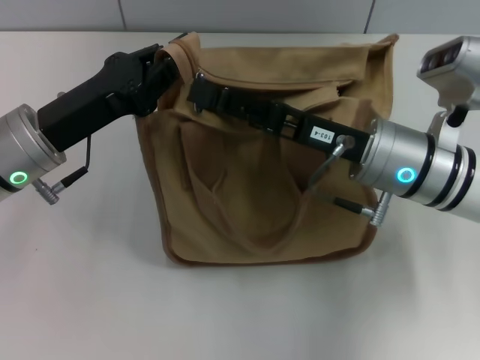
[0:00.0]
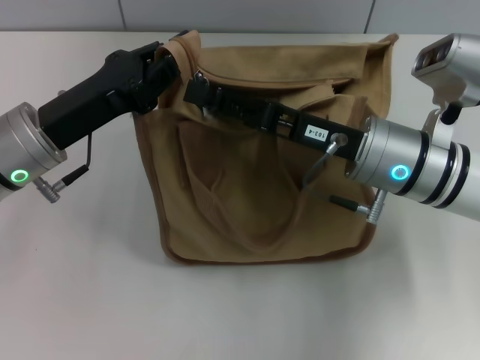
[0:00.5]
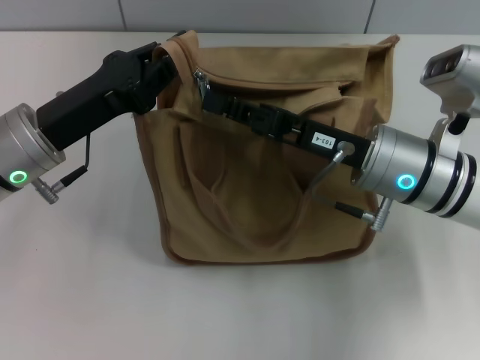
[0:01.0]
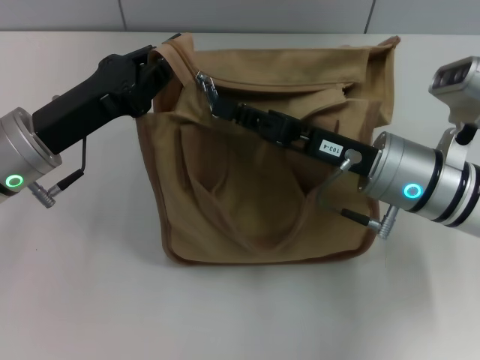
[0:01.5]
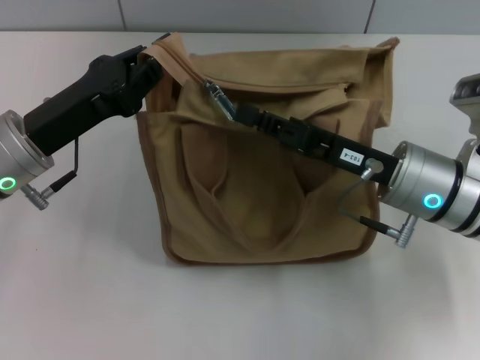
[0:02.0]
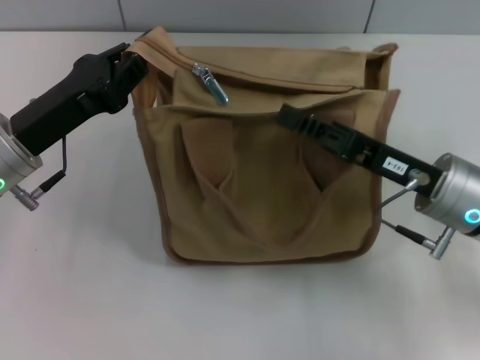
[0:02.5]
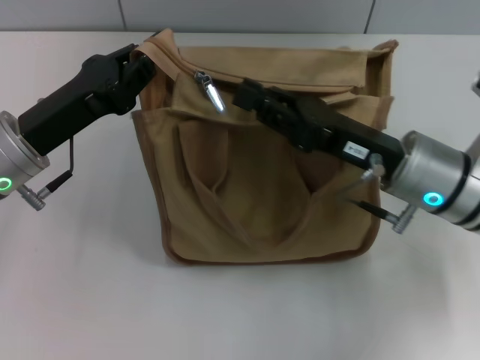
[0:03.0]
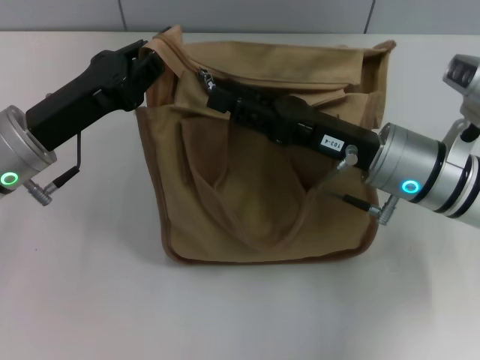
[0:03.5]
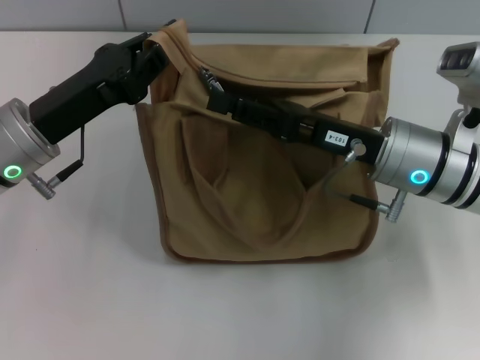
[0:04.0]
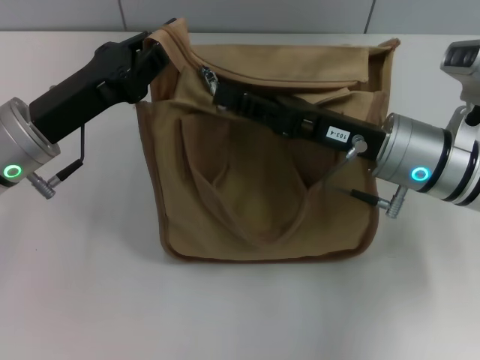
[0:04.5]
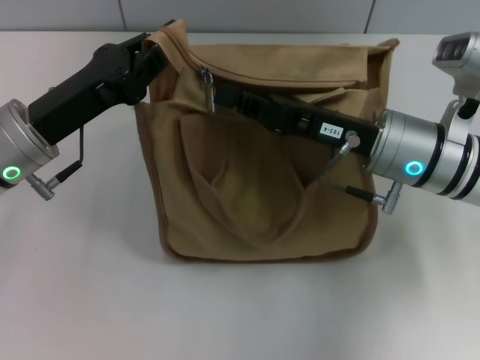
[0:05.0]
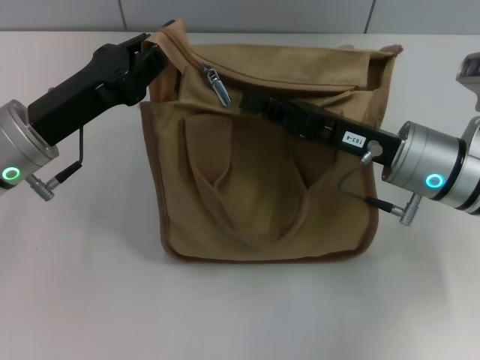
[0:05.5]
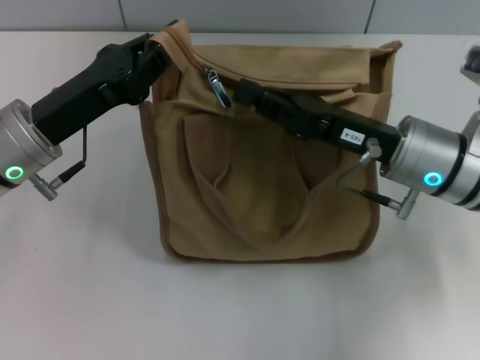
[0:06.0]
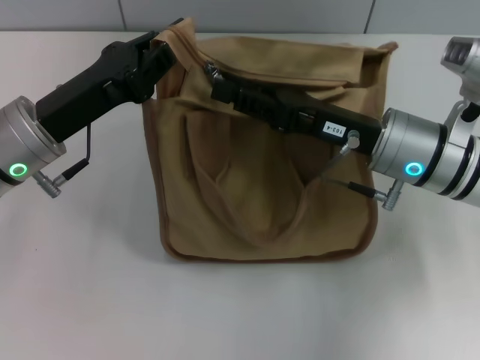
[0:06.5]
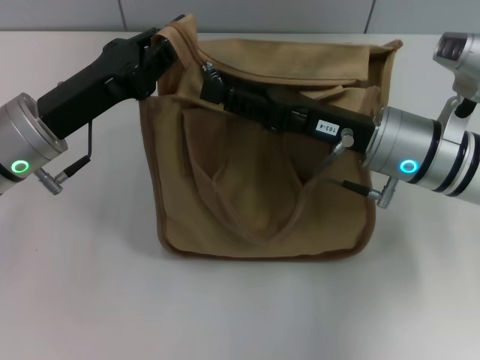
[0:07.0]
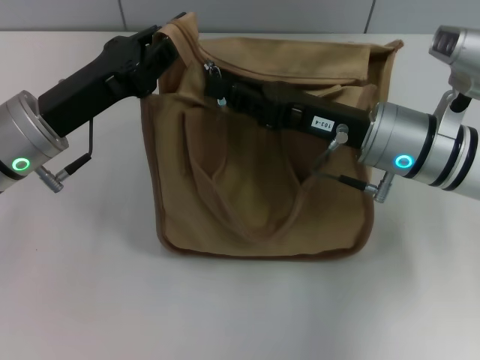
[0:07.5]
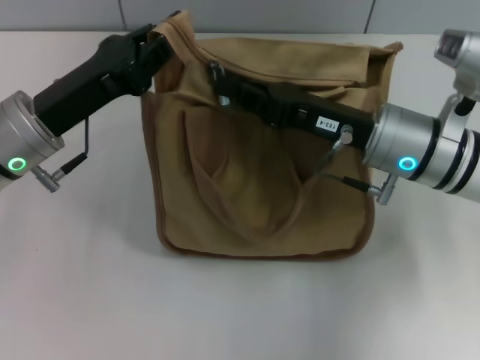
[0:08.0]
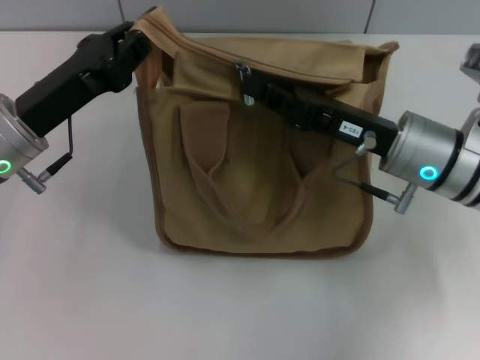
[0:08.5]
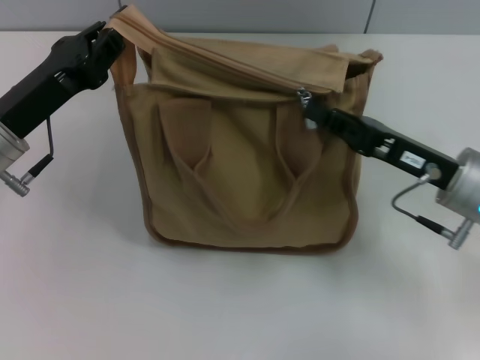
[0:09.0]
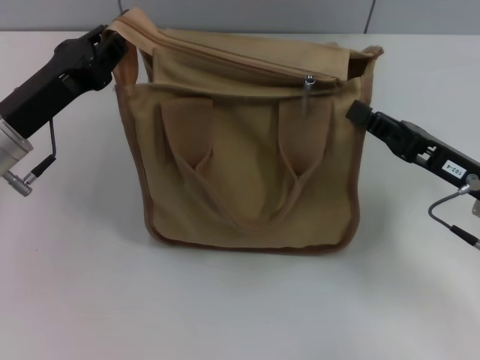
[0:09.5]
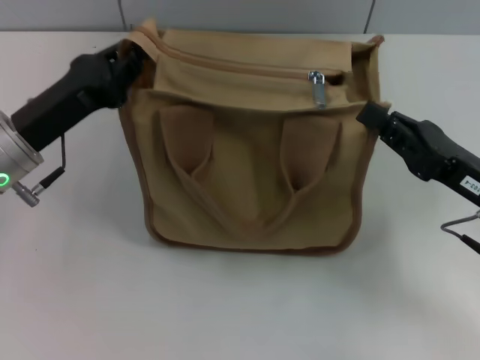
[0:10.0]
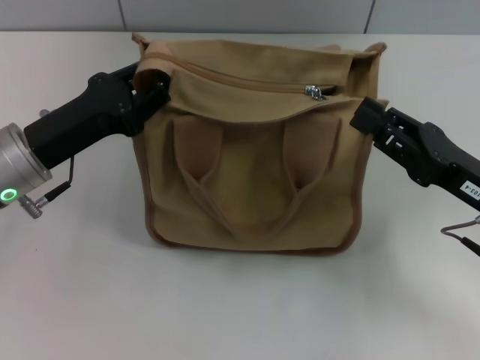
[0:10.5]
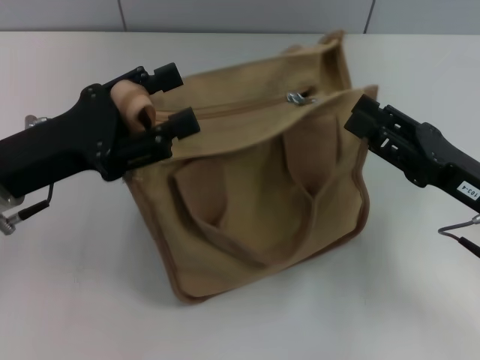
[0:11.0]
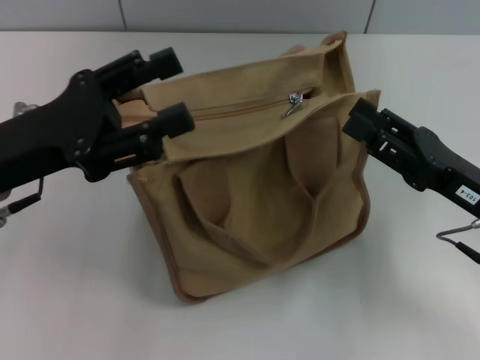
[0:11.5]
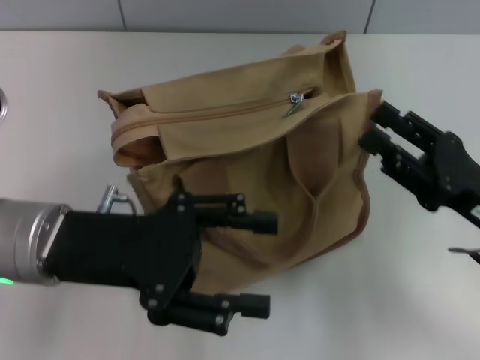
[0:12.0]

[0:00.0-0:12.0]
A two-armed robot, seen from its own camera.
Step, 0:00.0 to 0:09.5: Pull up the zipper with your right hand.
Step, 0:10.0 to 0:11.0: Grab the zipper with your left hand.
0:00.0 to 0:02.0: The right gripper closes its fingers.
0:02.0 to 0:04.0: The right gripper opens its fingers.
0:04.0 to 0:06.0: The right gripper closes its fingers.
0:06.0 to 0:08.0: The right gripper opens, then closes once more.
0:08.0 to 0:10.0: The right gripper moves to the right and backward, about 15 cm.
0:10.0 to 0:12.0: The right gripper opens its fingers; the left gripper is displaced backward by about 5 cm, and opens.

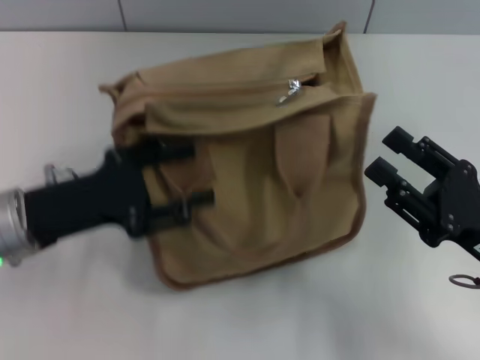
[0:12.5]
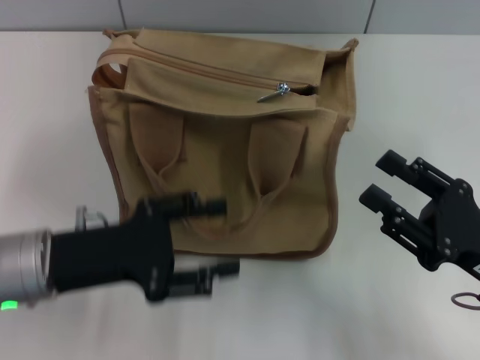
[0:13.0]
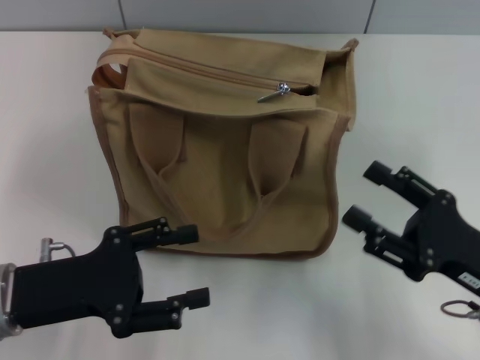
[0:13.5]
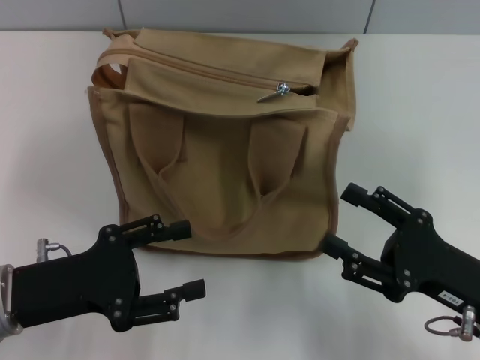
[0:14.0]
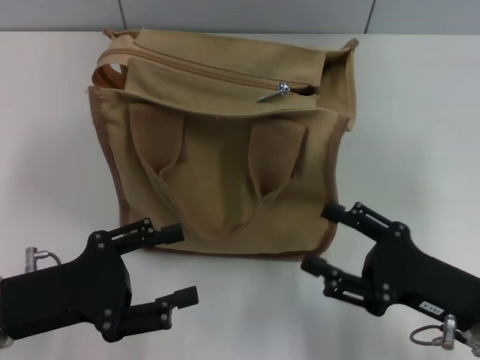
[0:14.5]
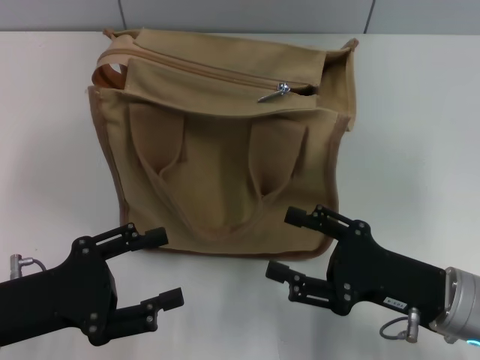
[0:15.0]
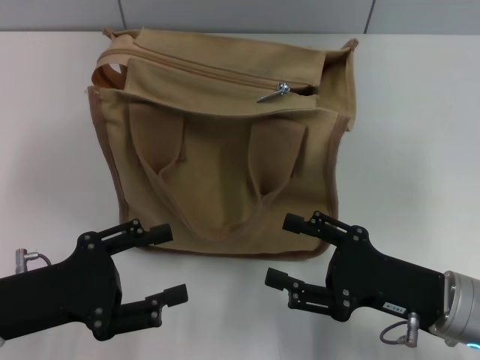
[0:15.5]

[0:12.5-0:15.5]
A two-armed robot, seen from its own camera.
0:12.5 to 0:14.0: The left gripper is displaced backward by roughly 5 cm.
0:14.0 to 0:15.5: The grippers stay close to where they were, moving slightly.

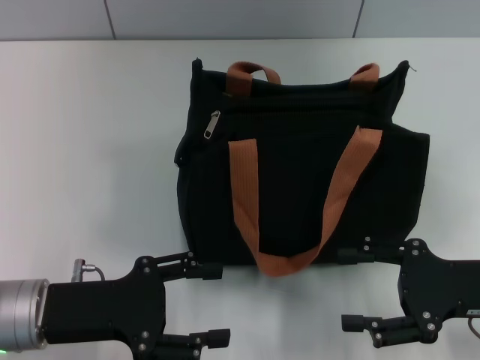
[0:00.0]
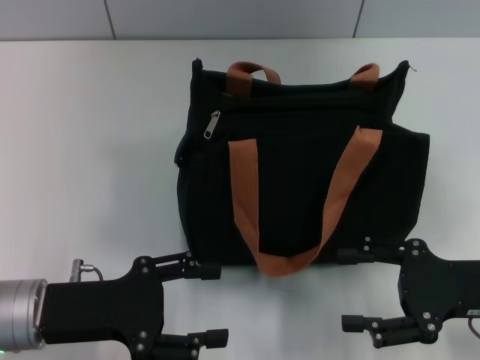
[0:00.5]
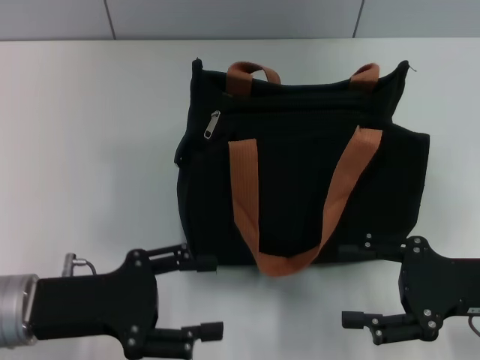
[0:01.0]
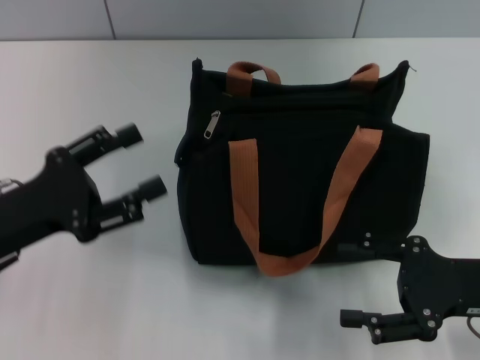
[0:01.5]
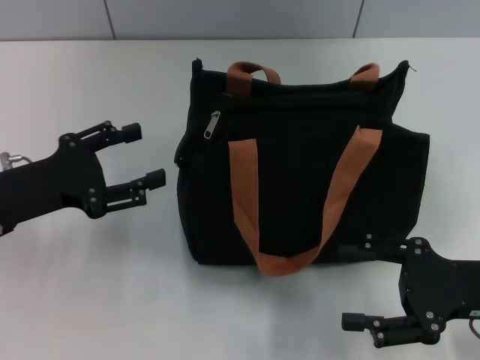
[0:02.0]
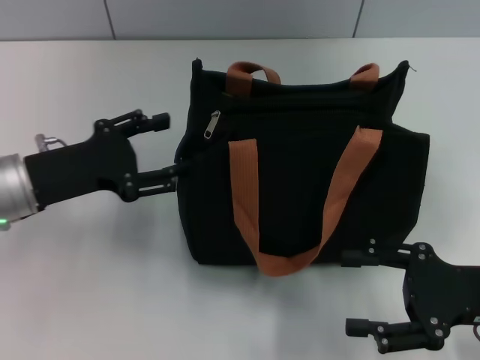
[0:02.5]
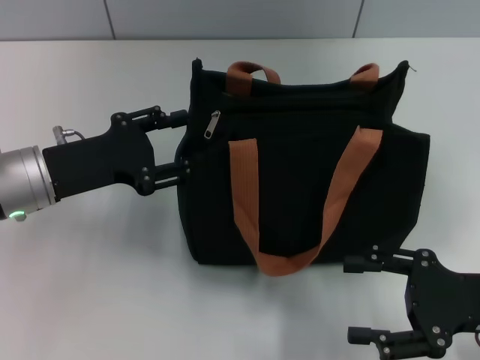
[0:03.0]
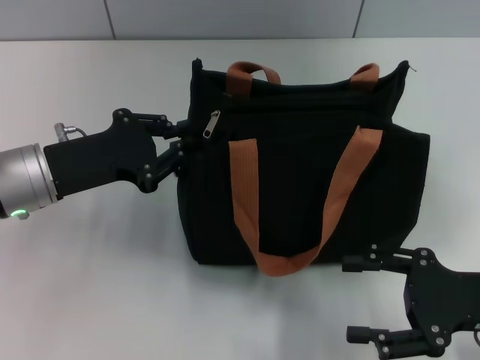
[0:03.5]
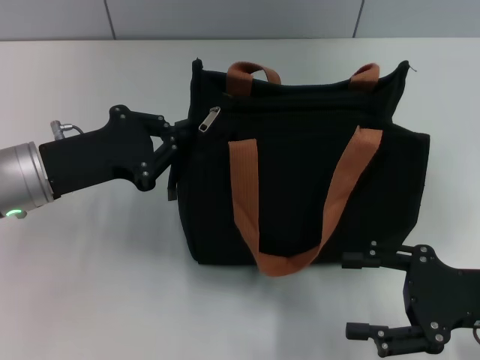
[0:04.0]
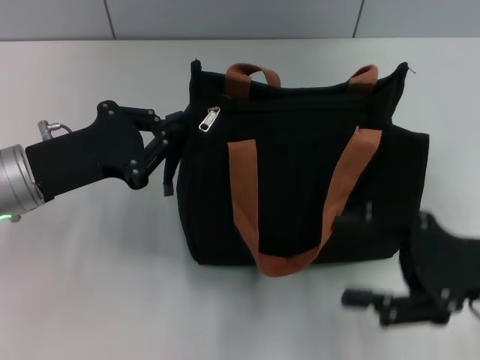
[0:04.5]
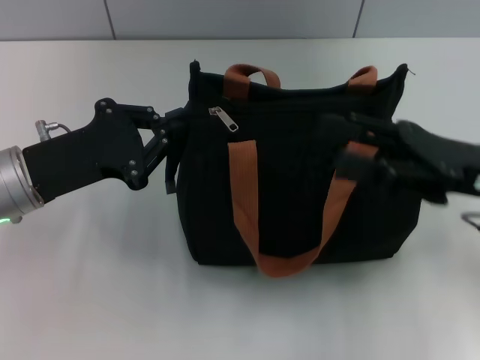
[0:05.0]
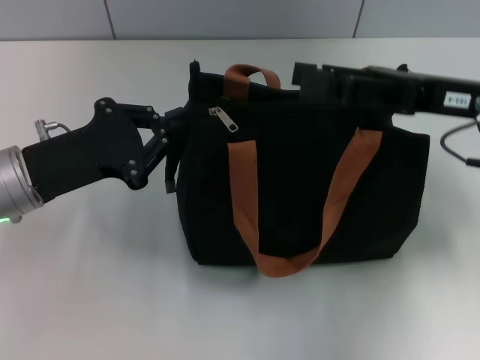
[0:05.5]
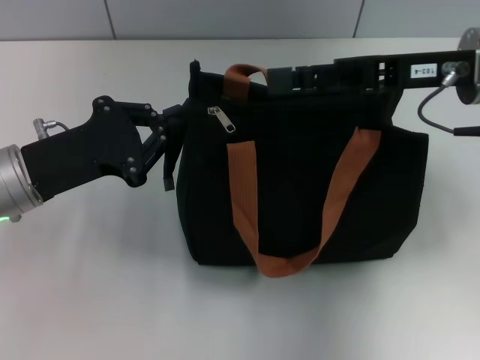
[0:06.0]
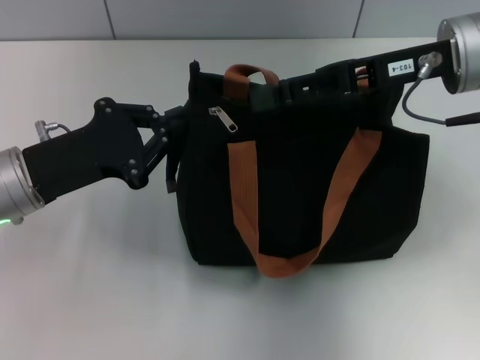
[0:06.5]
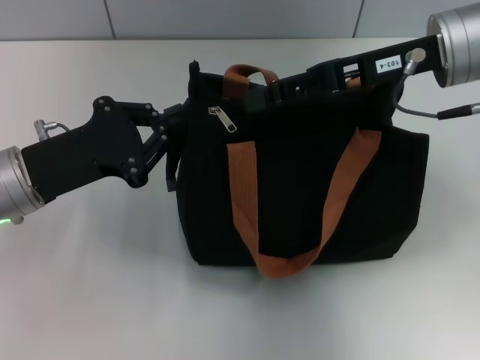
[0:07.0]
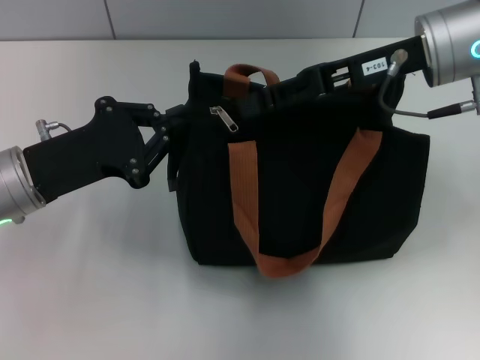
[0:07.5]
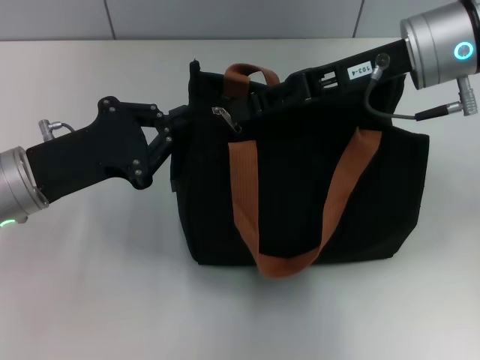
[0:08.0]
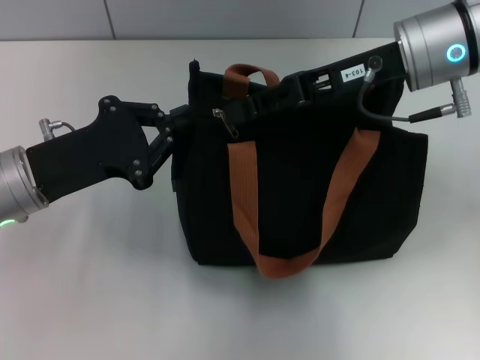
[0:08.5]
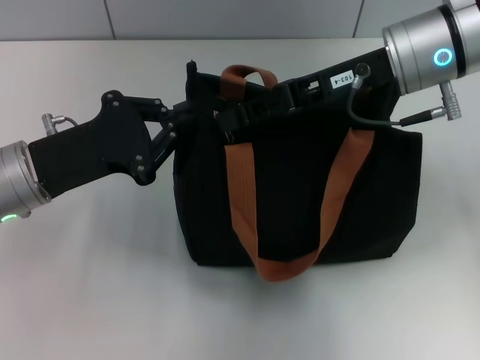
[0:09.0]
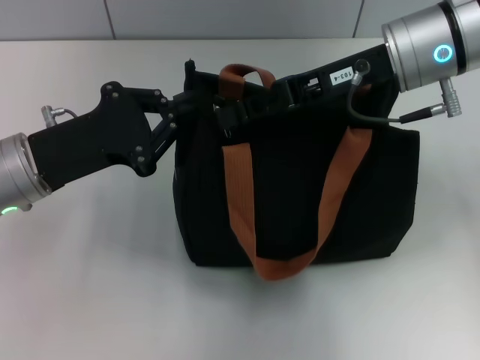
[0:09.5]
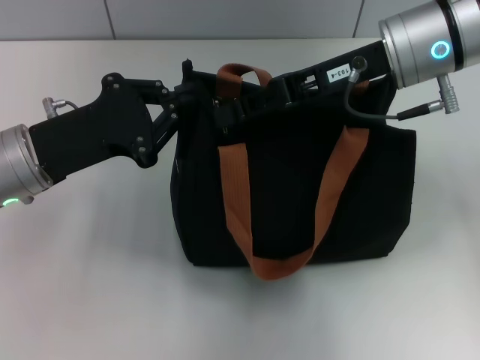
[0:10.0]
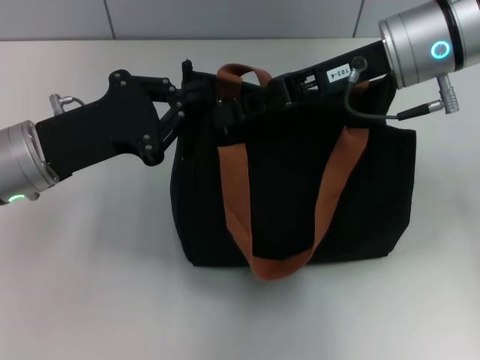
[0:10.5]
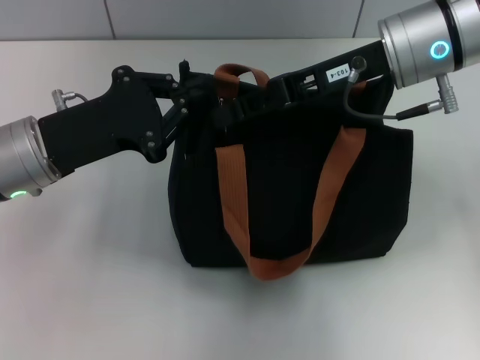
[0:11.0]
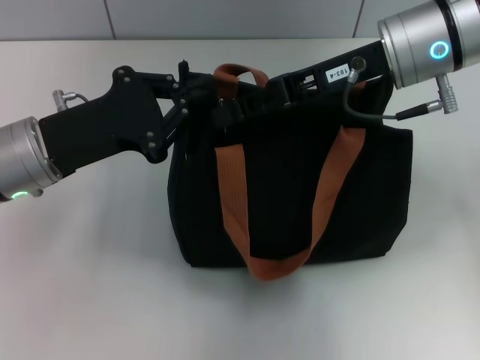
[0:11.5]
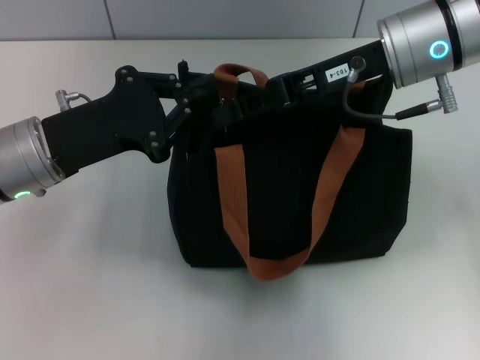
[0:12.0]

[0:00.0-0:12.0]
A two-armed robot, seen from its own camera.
0:00.0 to 0:02.0: The left gripper heads forward, covering roughly 5 cm.
0:02.0 to 0:04.0: The left gripper changes place by some 5 cm, and closes up.
0:04.0 to 0:06.0: The right gripper shifts approximately 20 cm forward, upward and to the left.
0:06.0 to 0:08.0: The right gripper closes.
0:08.0 to 0:10.0: There are only small adjustments of the grippers.
0:10.0 to 0:12.0: Both grippers stay put.
